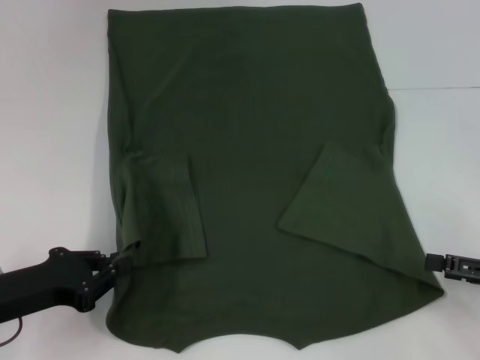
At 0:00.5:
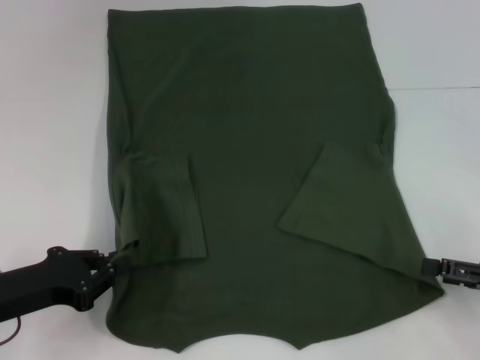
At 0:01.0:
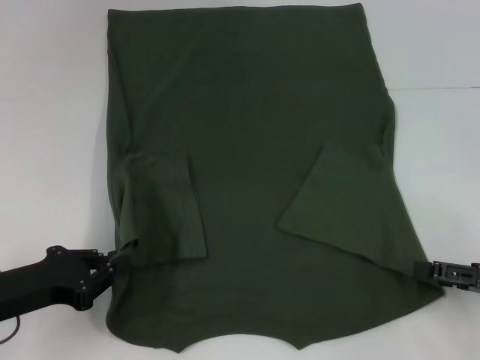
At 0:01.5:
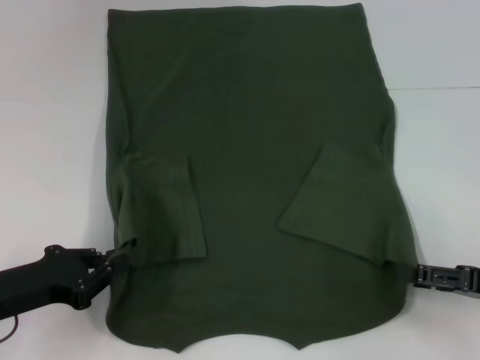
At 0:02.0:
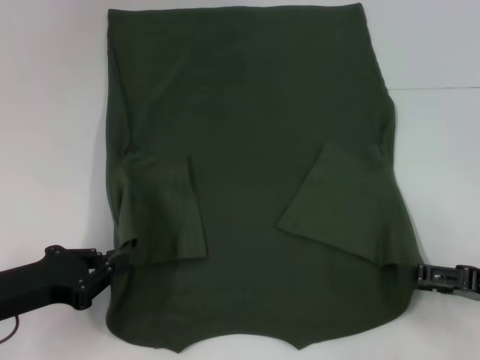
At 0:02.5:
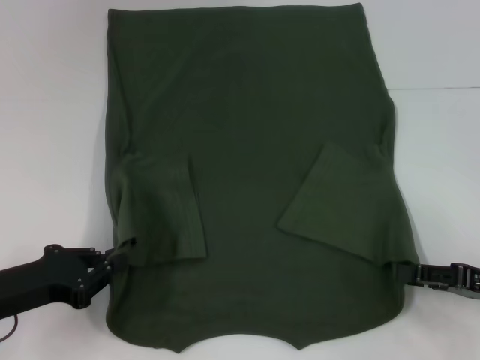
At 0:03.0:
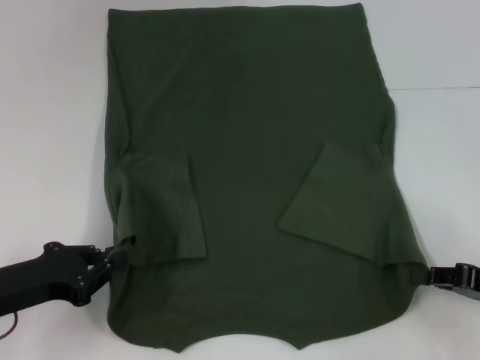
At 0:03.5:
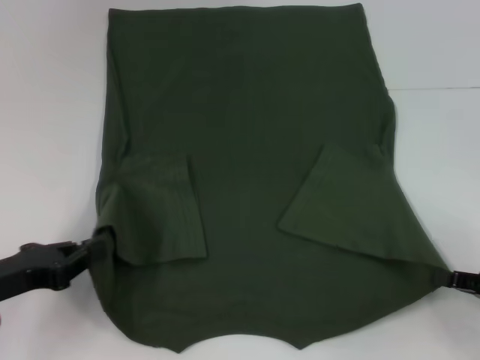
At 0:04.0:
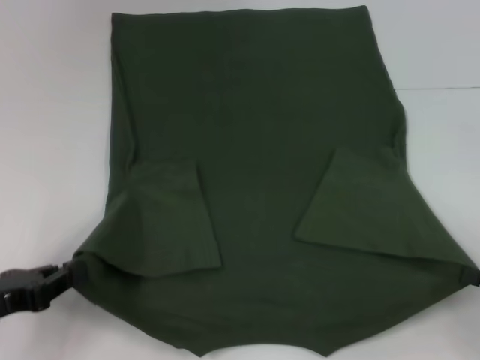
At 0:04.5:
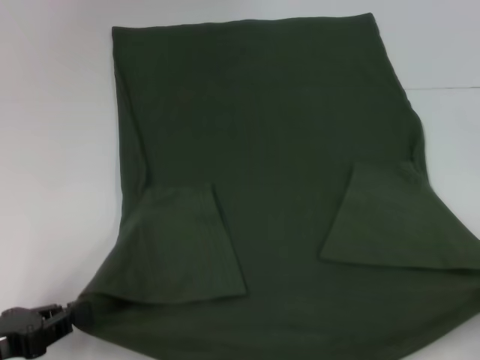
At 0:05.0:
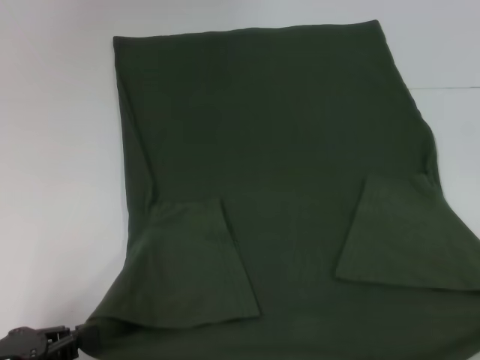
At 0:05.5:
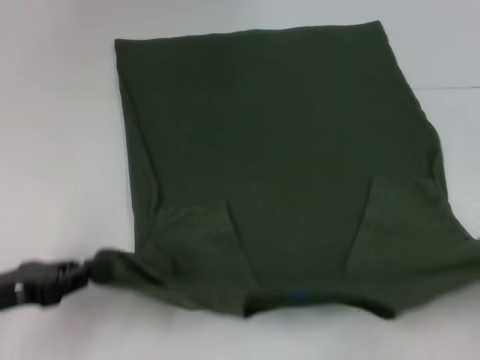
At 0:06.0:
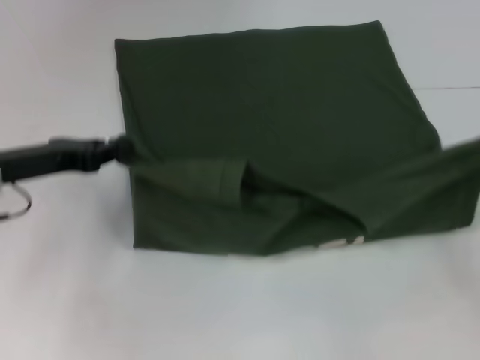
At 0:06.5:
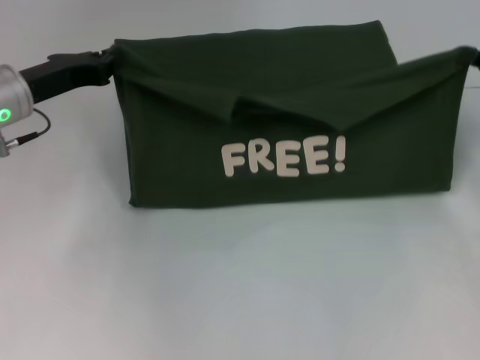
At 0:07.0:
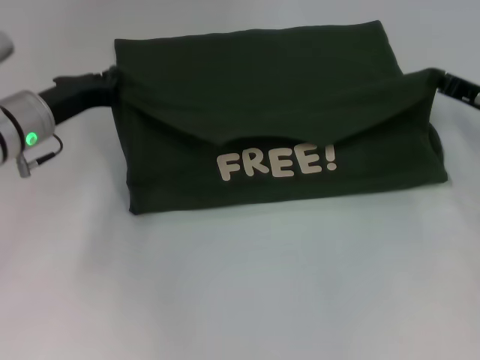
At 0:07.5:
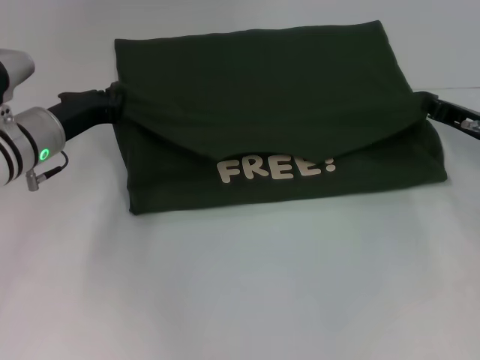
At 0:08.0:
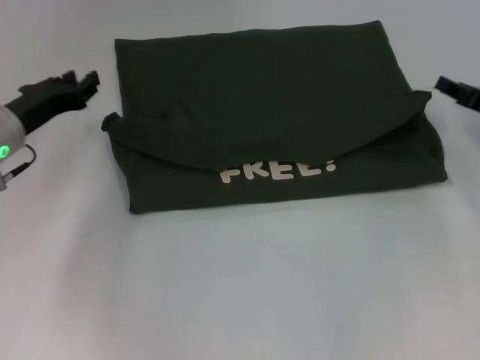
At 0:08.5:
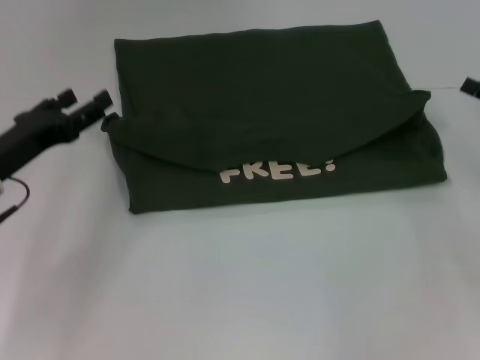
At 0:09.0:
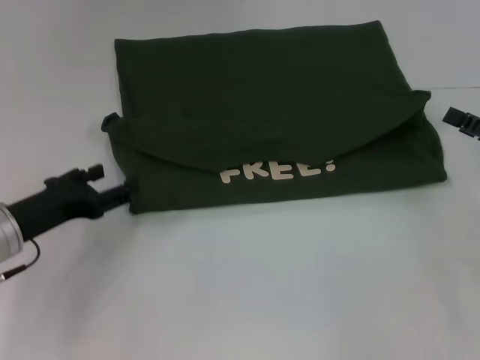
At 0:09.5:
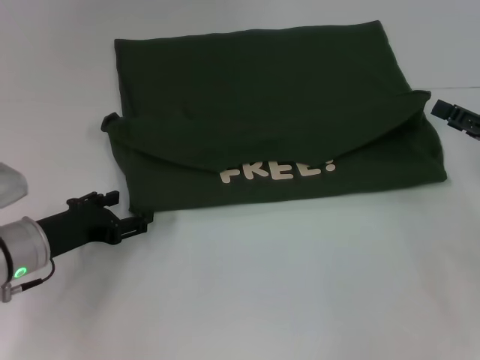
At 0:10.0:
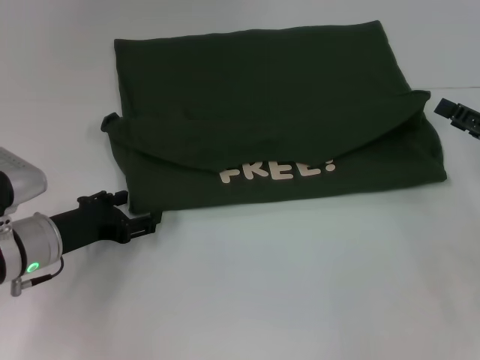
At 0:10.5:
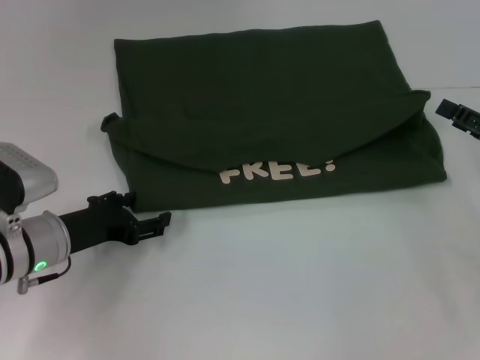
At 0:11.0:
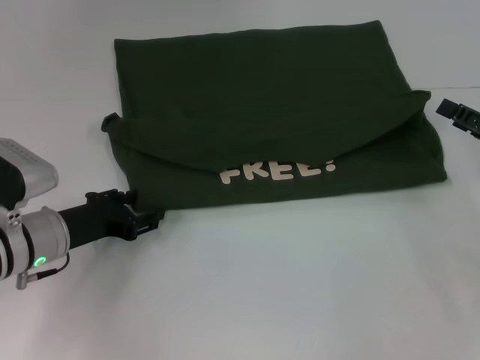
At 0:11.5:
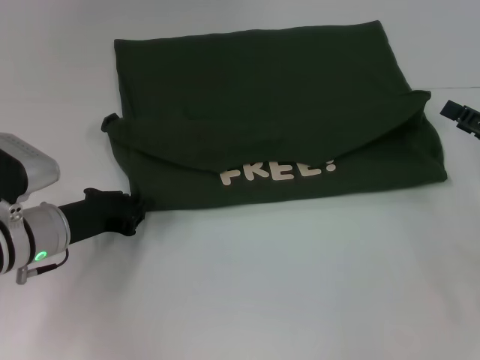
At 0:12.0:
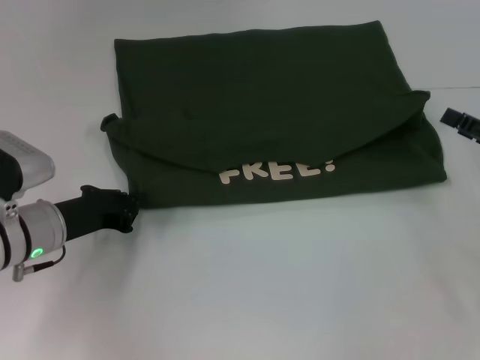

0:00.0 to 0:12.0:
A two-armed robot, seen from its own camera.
Step, 0:00.0 to 0:03.0: Grab the bottom right corner with your right hand.
Step, 0:03.5 to 0:07.5: Fold the clothes with your left hand.
Step, 0:03.5 to 0:07.5: Fold the clothes with your right hand.
0:00.0 to 0:02.0: The grippers stay close to where they were, moving slightly.
0:02.0 to 0:04.0: The right gripper shifts by roughly 5 cm, and closes.
0:04.0 to 0:06.0: The left gripper moves forward and upward, some 15 cm; the right gripper travels forward by roughly 10 cm.
0:06.0 to 0:08.0: The right gripper moves forward and to the left, about 10 cm.
0:08.0 to 0:10.0: The right gripper goes about 5 cm backward, and opens its fingers; the left gripper is displaced backward and downward by approximately 10 cm, and opens.
0:10.0 to 0:12.0: The left gripper closes its fingers.

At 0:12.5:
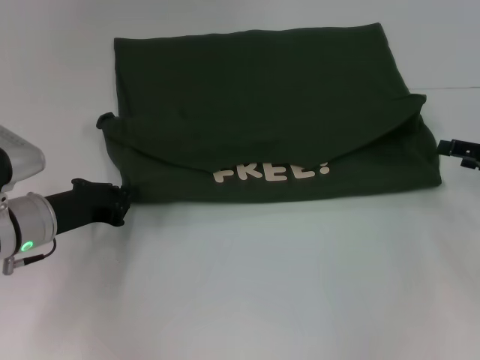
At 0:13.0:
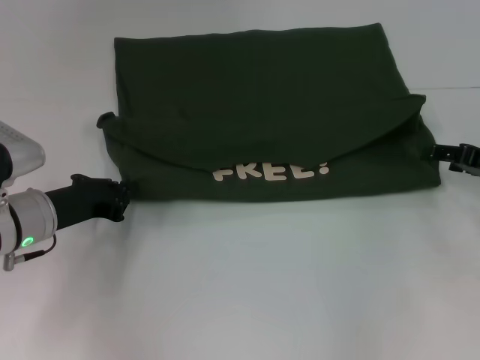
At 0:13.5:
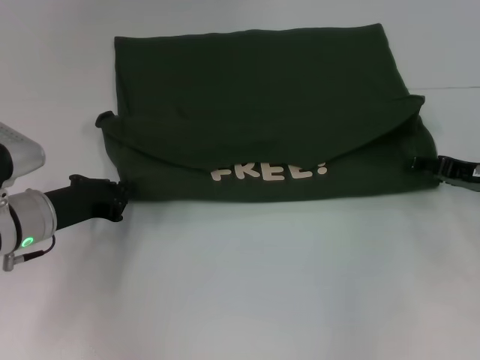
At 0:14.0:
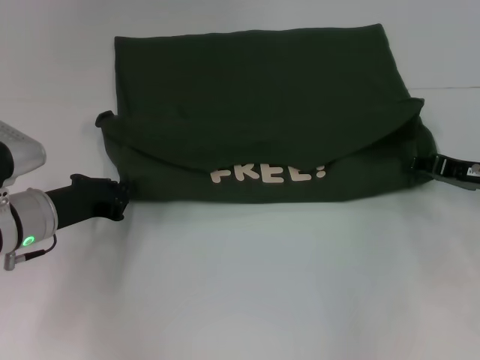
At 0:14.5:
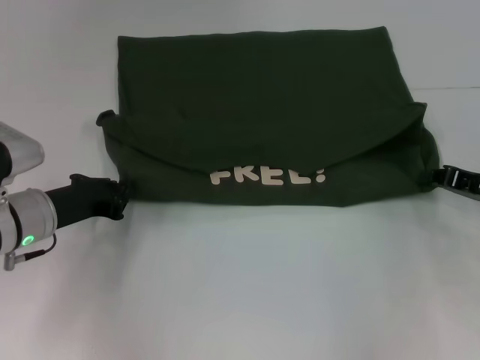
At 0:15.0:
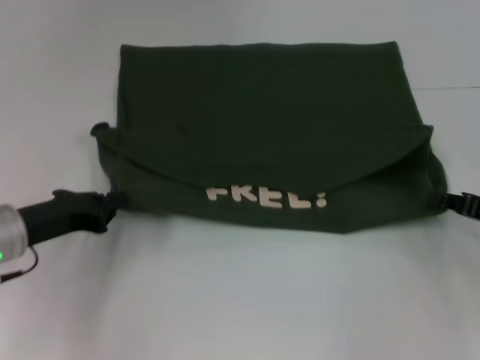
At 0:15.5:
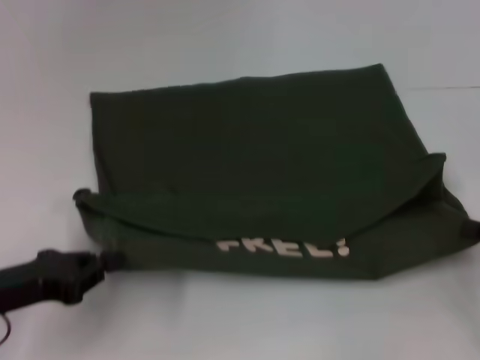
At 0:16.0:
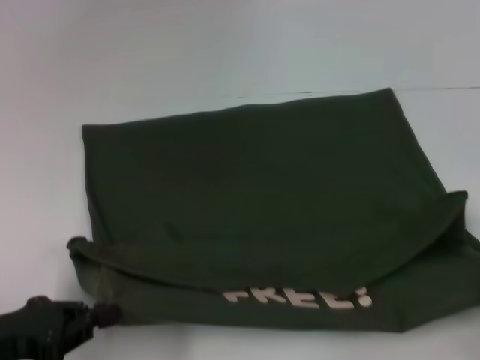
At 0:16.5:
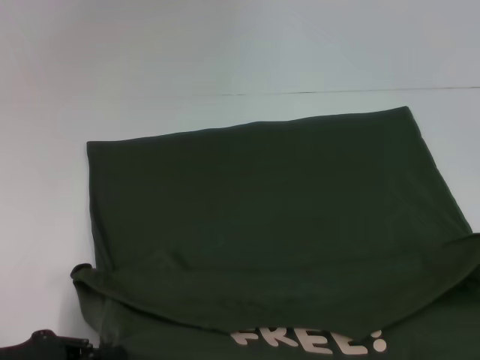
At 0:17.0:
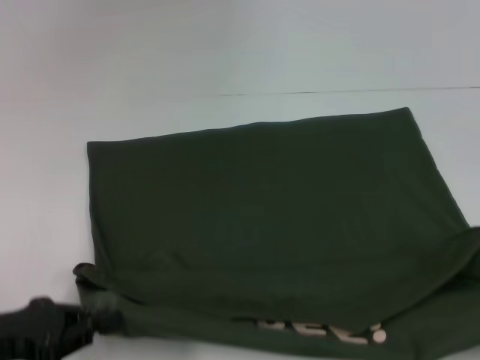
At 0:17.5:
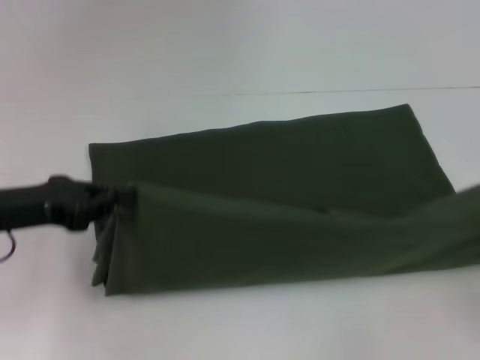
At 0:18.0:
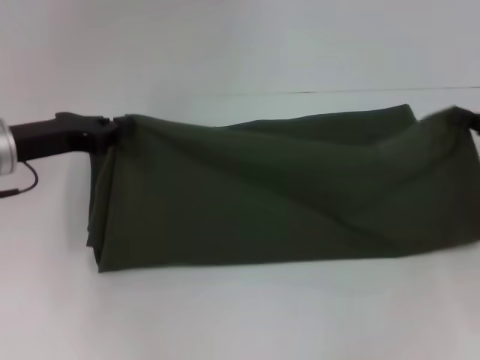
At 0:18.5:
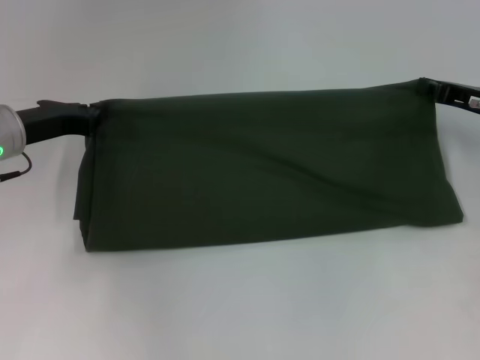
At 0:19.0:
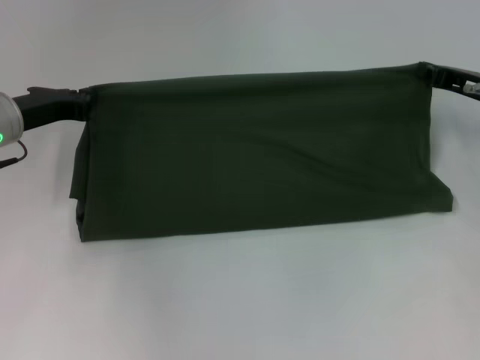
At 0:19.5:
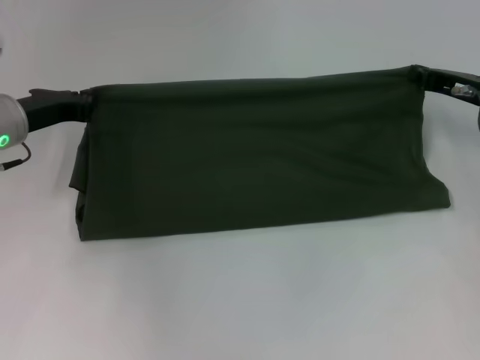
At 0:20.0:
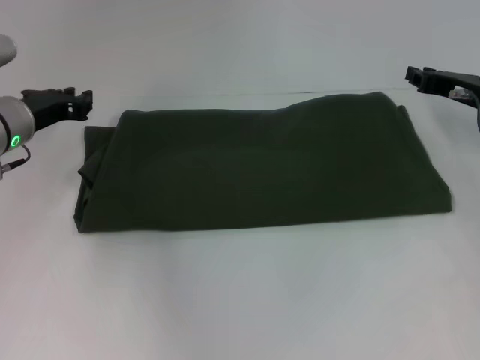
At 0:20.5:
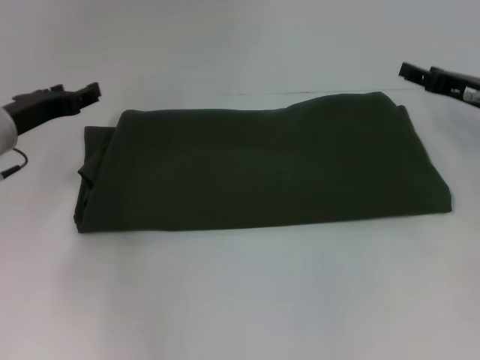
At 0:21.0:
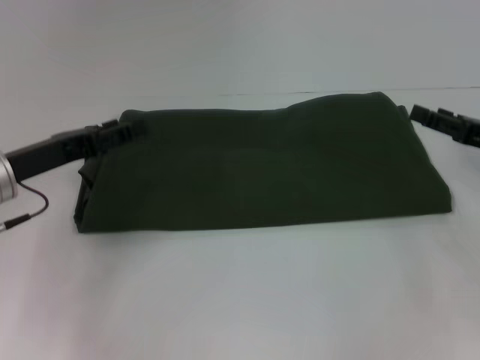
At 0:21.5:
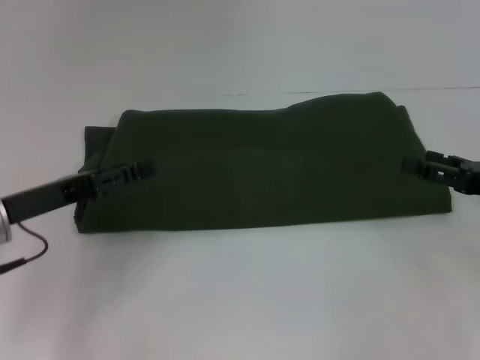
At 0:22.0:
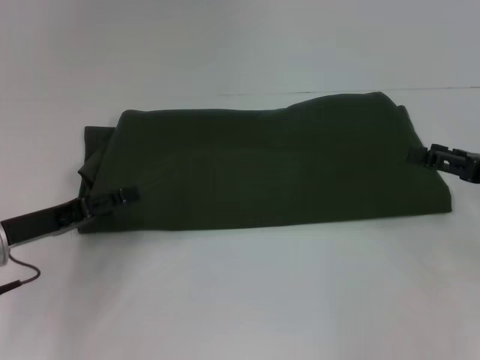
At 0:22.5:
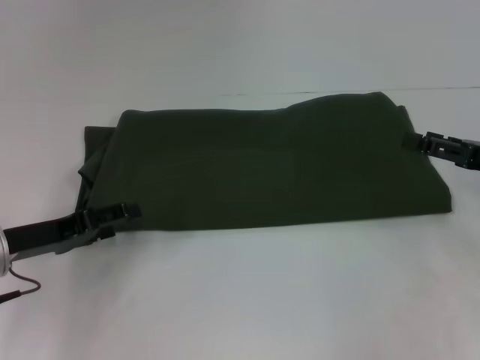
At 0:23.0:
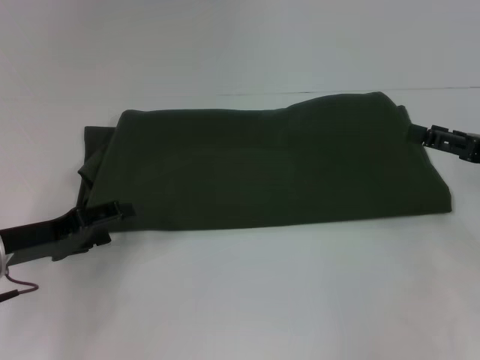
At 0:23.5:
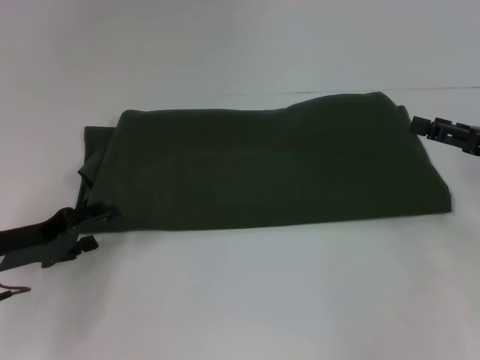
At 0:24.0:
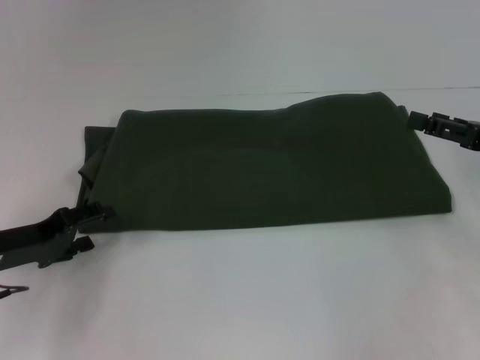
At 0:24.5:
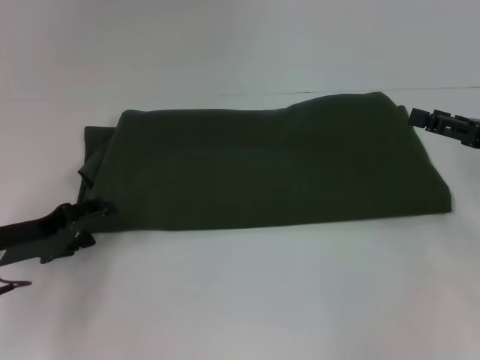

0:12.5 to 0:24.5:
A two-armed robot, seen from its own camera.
Step, 0:12.5 to 0:16.5: Pull the clothes with your left hand.
Step, 0:12.5 to 0:16.5: Pull the clothes with your right hand.
Step, 0:17.0 to 0:19.5: Fold the clothes with your right hand.
0:12.5 to 0:14.5: The right gripper closes up.
0:14.5 to 0:16.5: Both grippers travel together backward, roughly 20 cm.
0:16.5 to 0:18.5: The grippers both shift forward by some 25 cm.
0:18.5 to 0:20.5: The left gripper opens its fingers. Meanwhile the right gripper opens its fingers.
0:20.5 to 0:22.5: Both grippers travel together backward, roughly 10 cm.
0:22.5 to 0:24.5: The grippers move only a little.

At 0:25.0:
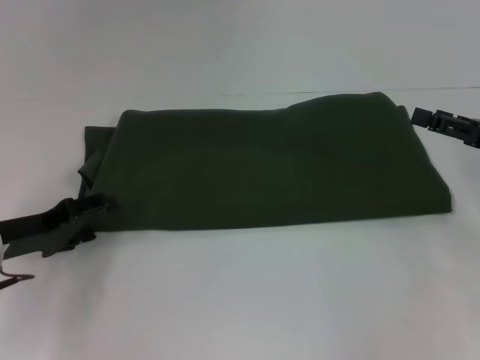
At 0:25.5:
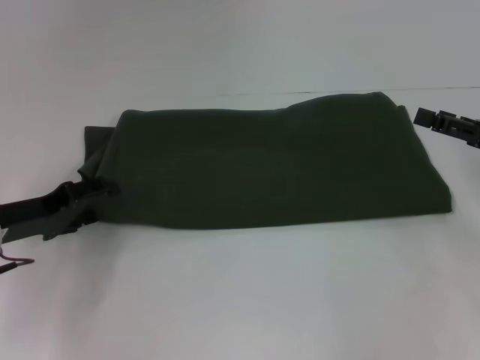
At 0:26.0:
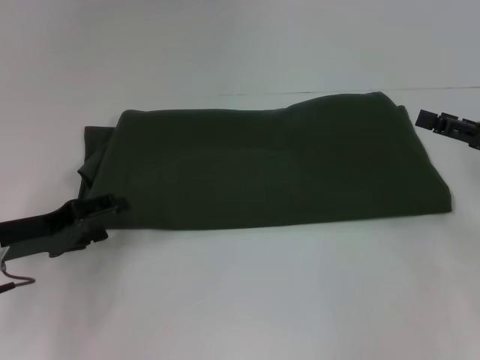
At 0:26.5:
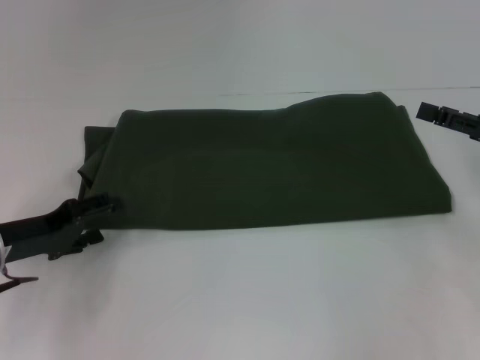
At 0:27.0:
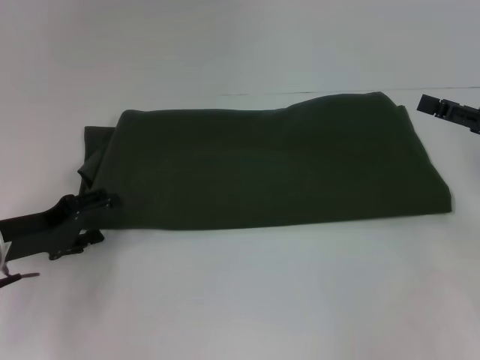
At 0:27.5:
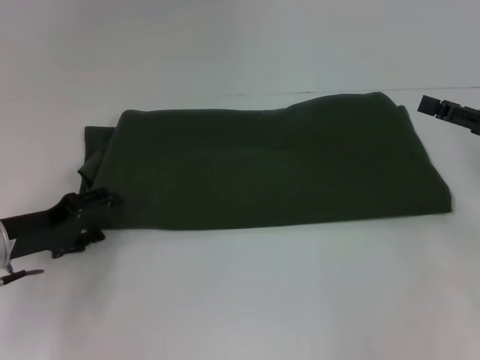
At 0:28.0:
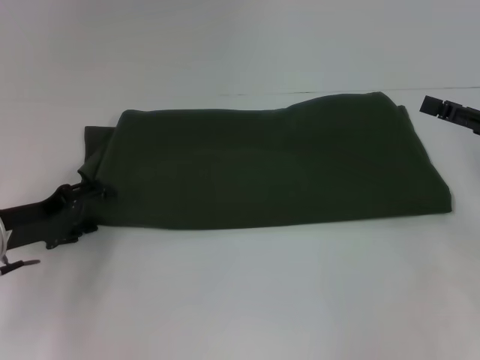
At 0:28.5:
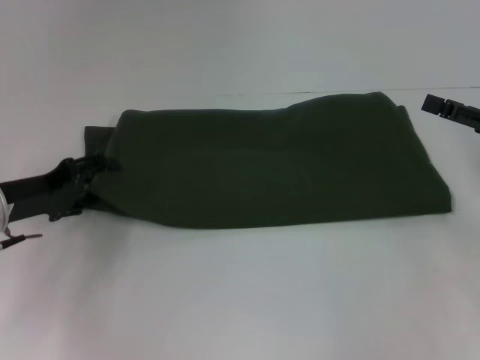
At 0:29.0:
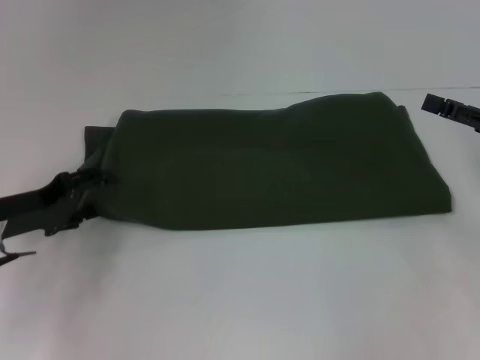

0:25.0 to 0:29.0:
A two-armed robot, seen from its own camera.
0:25.0 to 0:29.0: The grippers stay close to where they were, moving slightly.
